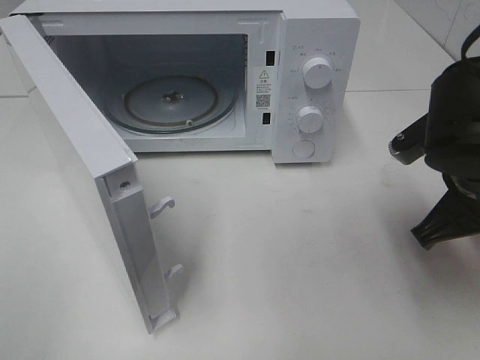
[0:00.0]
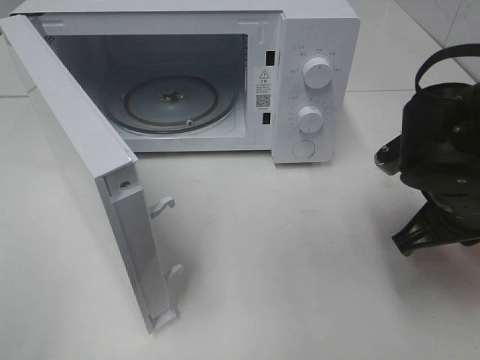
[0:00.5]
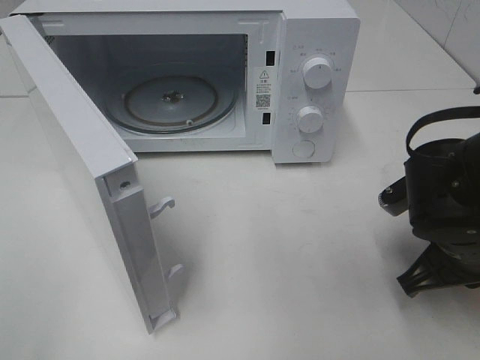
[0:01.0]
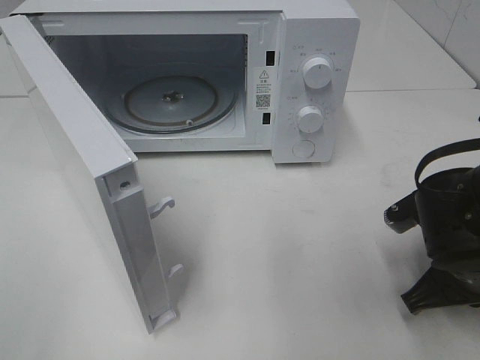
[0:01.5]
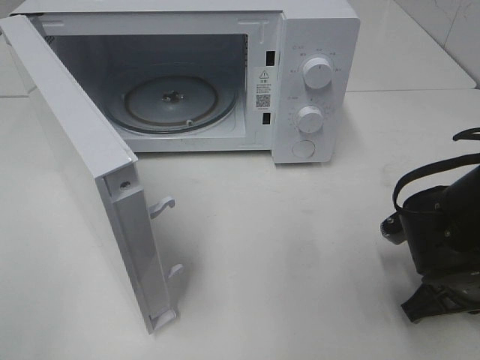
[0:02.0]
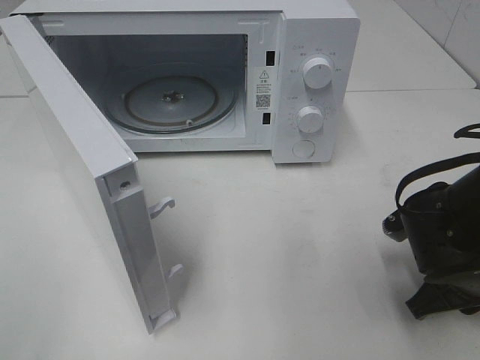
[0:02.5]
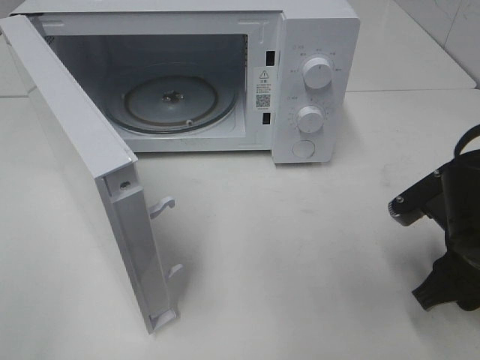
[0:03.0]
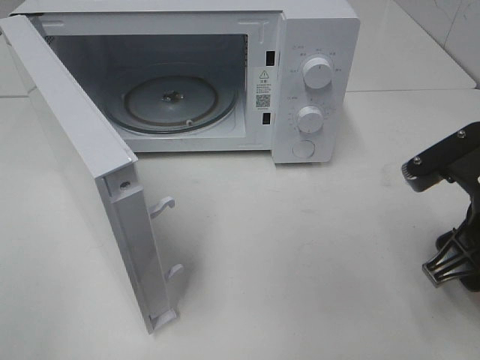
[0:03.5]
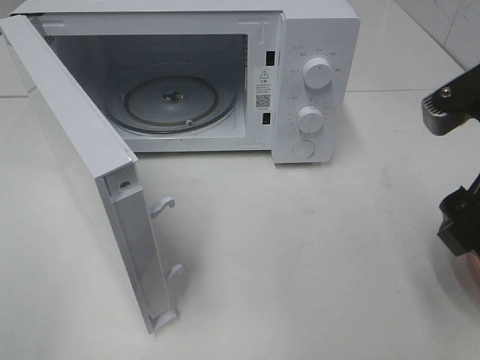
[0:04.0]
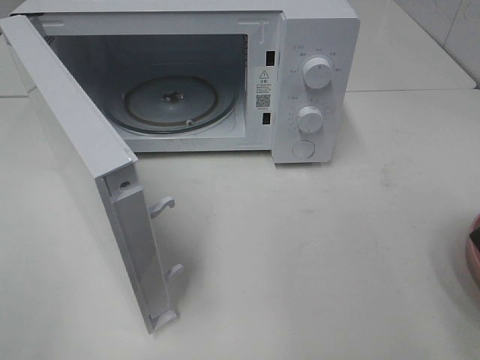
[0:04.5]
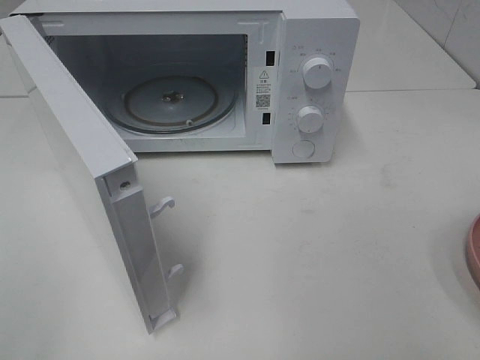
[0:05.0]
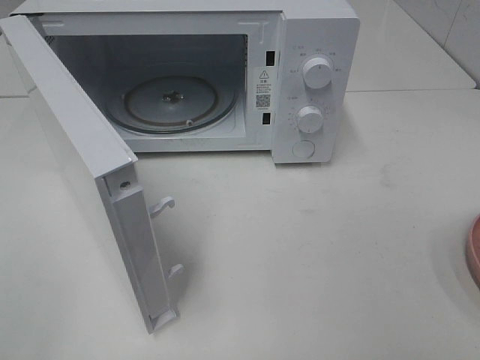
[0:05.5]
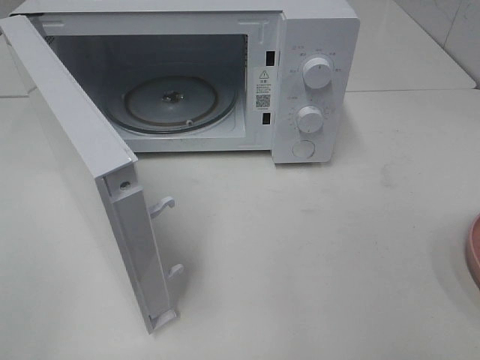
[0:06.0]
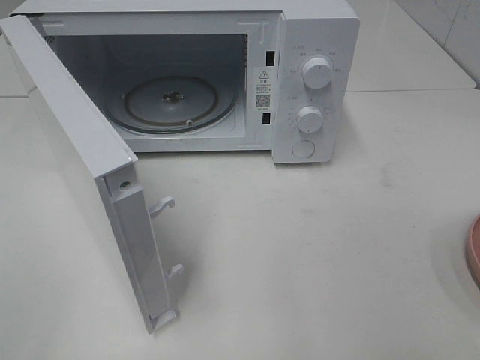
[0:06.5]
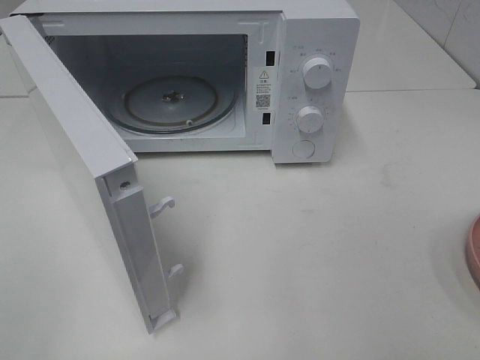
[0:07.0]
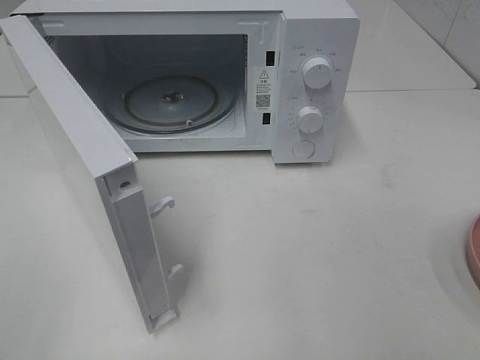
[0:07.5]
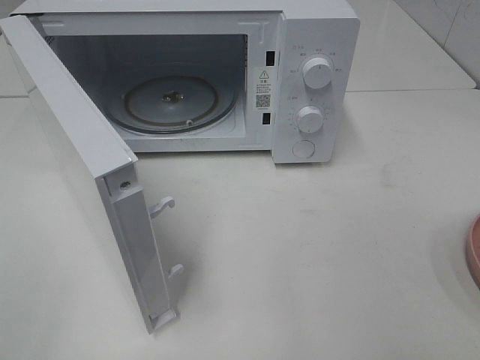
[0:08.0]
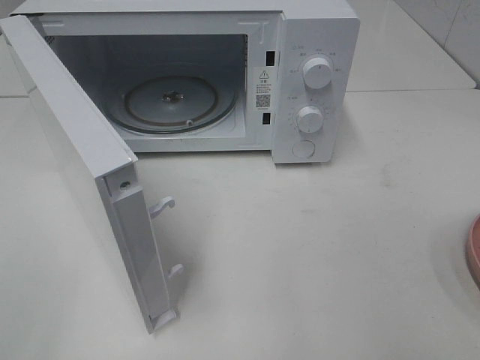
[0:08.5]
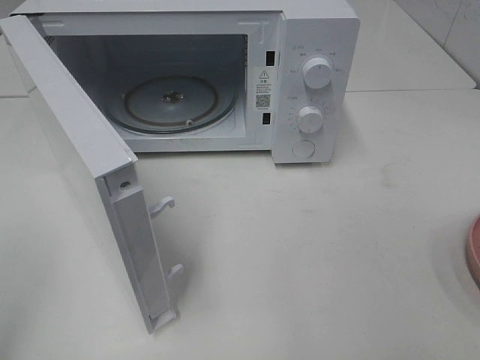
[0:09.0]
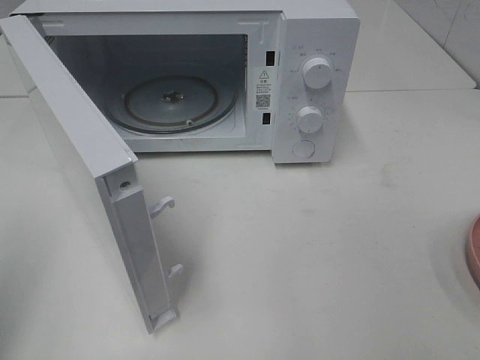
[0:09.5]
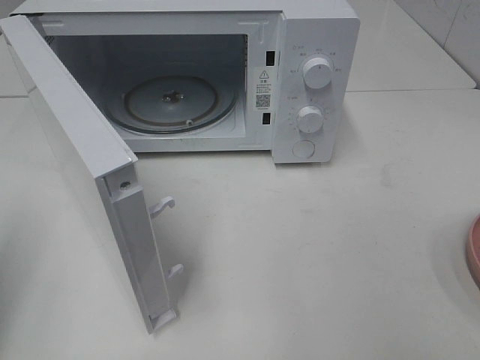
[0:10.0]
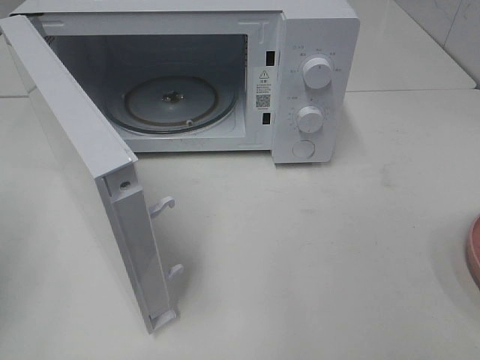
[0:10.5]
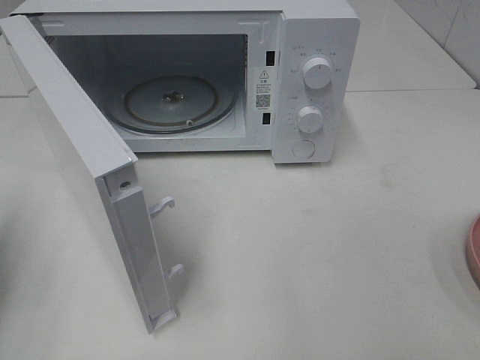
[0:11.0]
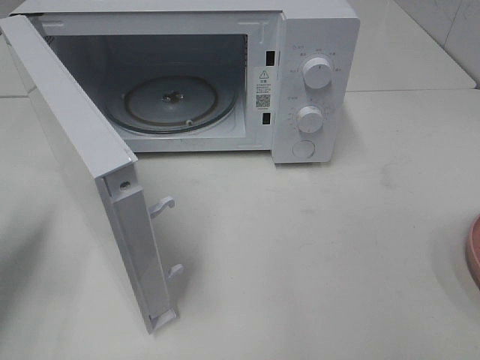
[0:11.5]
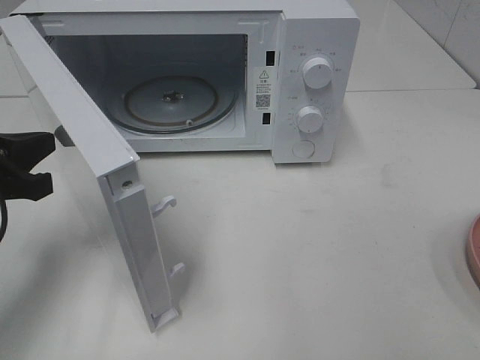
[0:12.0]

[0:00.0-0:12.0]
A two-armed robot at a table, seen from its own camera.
Task of the whole recording: Heat the burger.
Step, 0:00.0 to 0:02.5: Right hand: place the plate on the table.
0:00.0 to 0:02.0: The right gripper travels downward by approximately 10 cm.
0:02.0 to 0:04.0: The right gripper heads upward, covering roughly 15 cm, and opens up.
0:04.0 to 0:06.0: The right gripper travels backward and to the right by roughly 20 cm.
0:06.0 to 0:08.0: Both grippers stay about where they are.
0:08.0 to 0:10.0: The left gripper is displaced forward by about 15 cm, and closes up.
0:10.0 to 0:12.0: The left gripper is displaced forward, downward and to the right by some 15 cm.

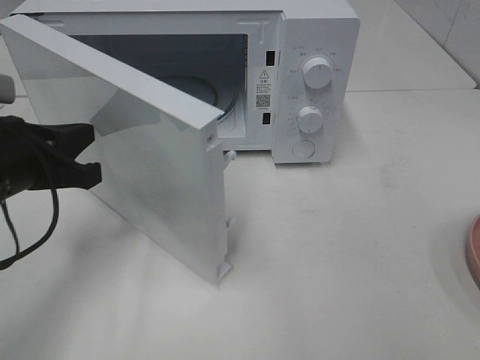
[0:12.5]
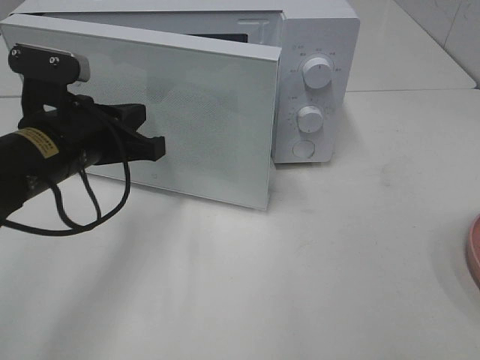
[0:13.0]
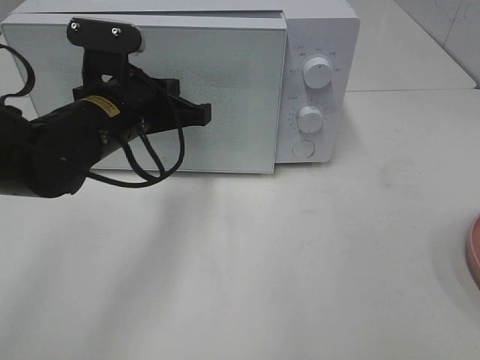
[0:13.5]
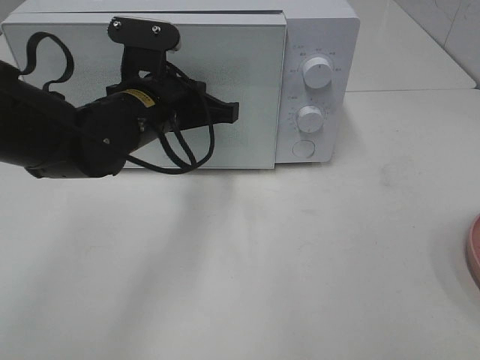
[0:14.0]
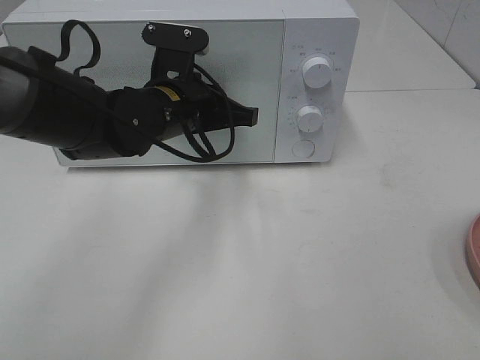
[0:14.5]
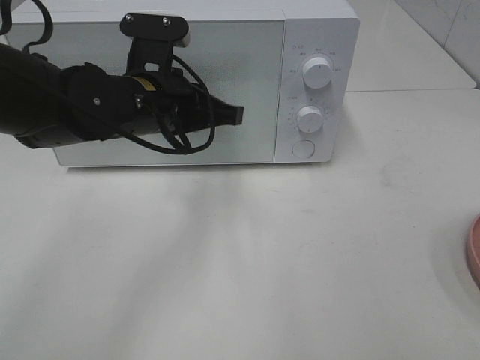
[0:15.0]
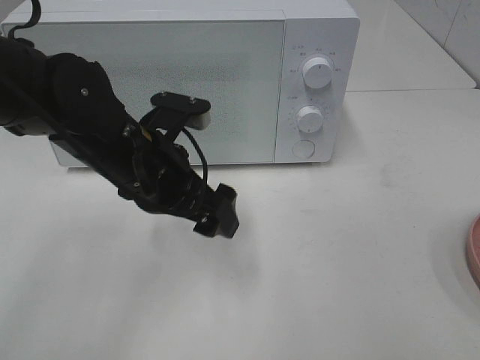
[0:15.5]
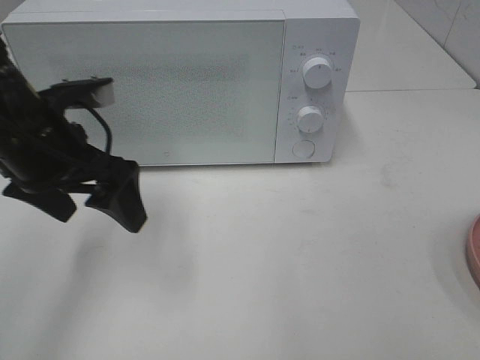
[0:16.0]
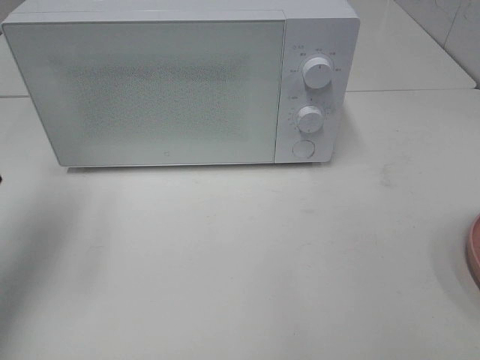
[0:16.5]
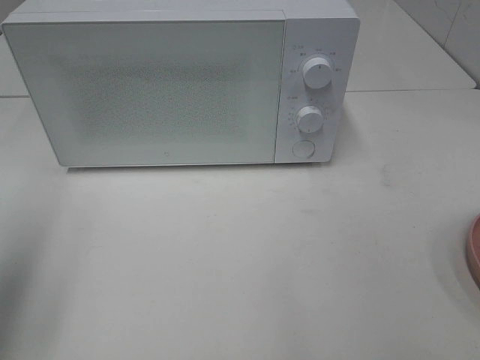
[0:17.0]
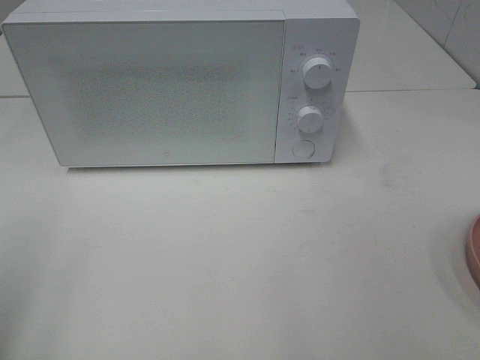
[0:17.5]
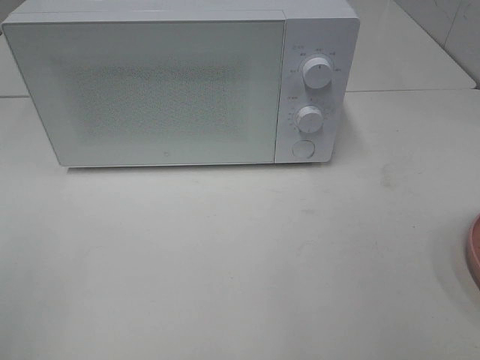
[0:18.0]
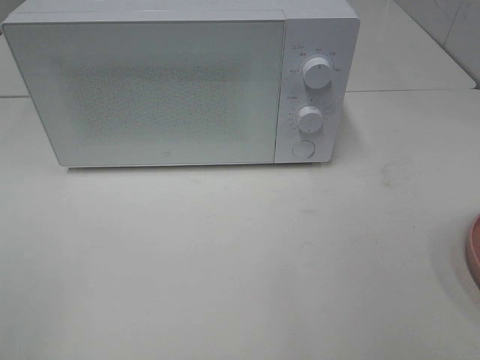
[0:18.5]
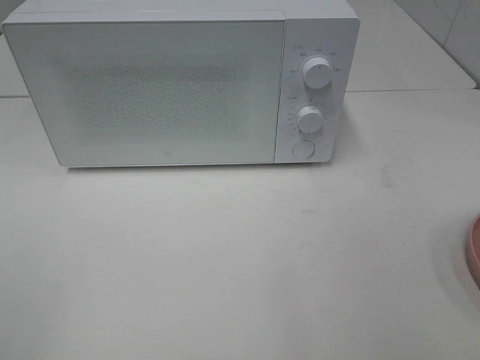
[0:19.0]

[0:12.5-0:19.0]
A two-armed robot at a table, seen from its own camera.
Task of the whole recording: Heat the burger.
Step, 0:12.5 to 0:15.0: Left hand: close the microwave door.
0:12.5 to 0:14.5: The left gripper shifts roughly 20 cm to the right and forward.
0:14.5 to 0:17.0: The left gripper heads to the left, backward and upward, covering approximately 35 cm, and opens.
0:17.0 to 0:19.0: The left gripper moves backward, about 20 cm.

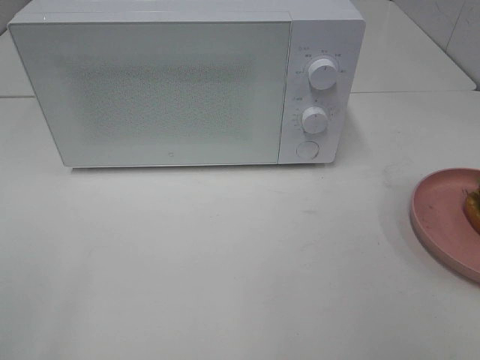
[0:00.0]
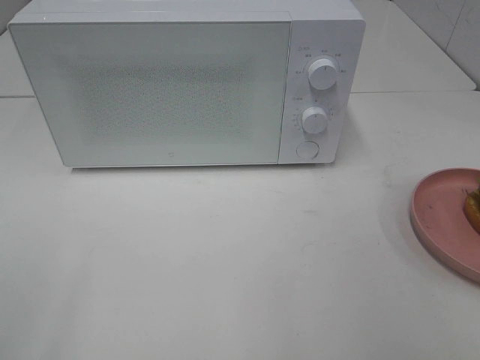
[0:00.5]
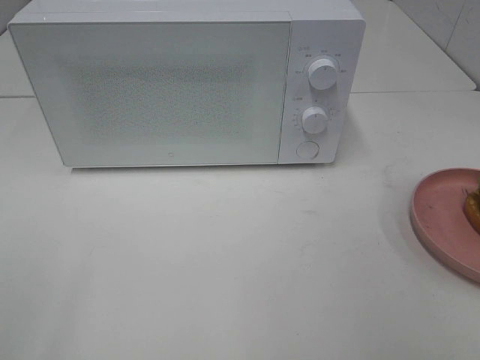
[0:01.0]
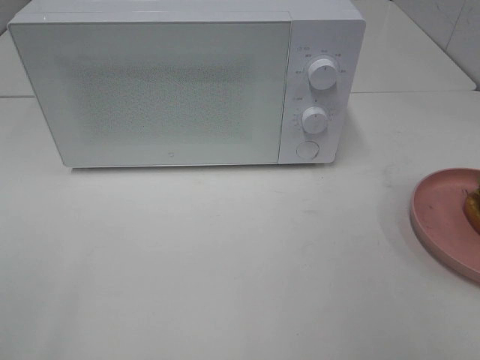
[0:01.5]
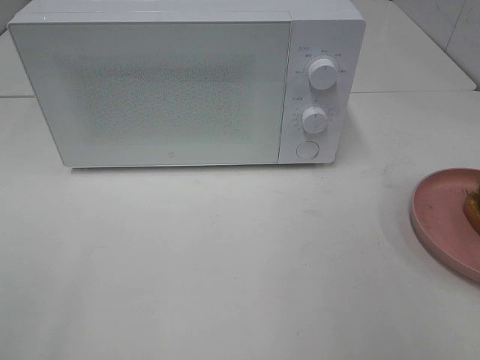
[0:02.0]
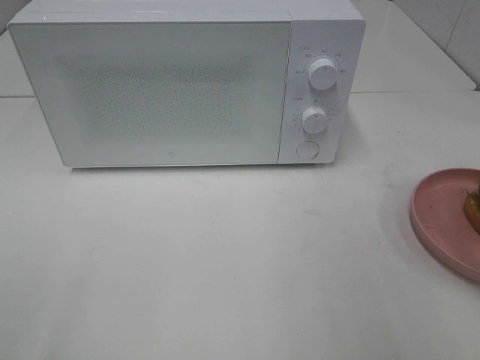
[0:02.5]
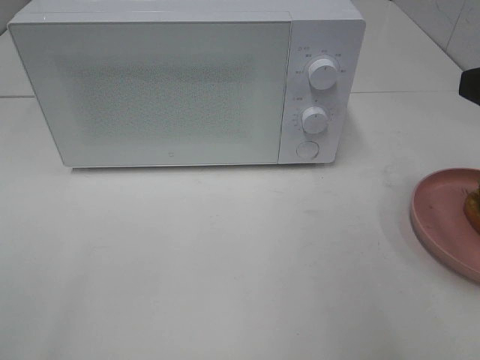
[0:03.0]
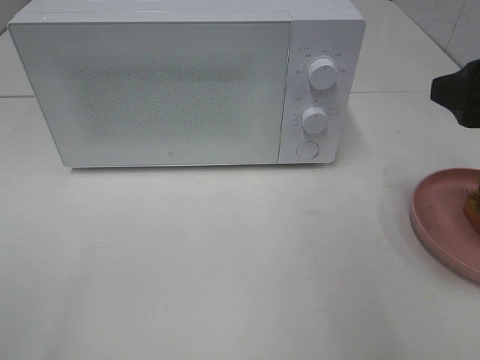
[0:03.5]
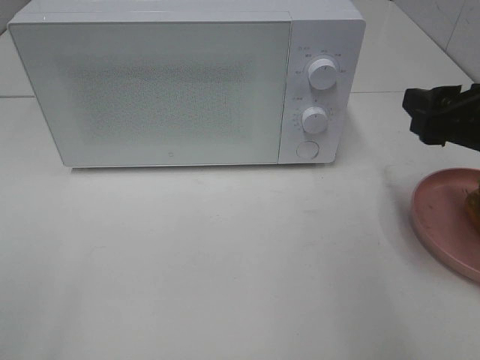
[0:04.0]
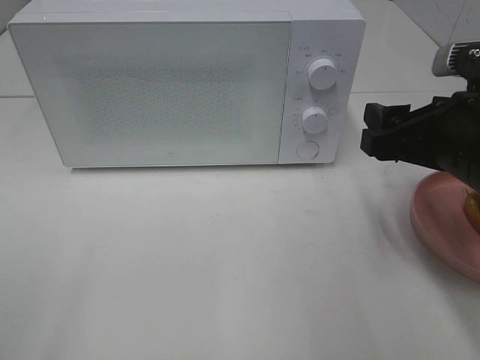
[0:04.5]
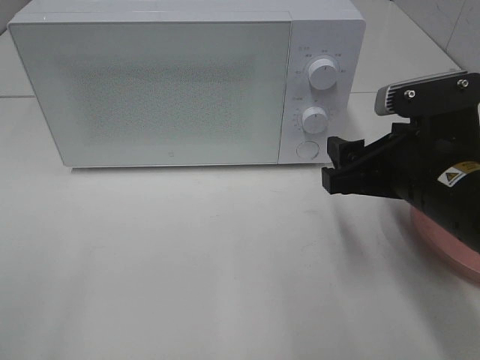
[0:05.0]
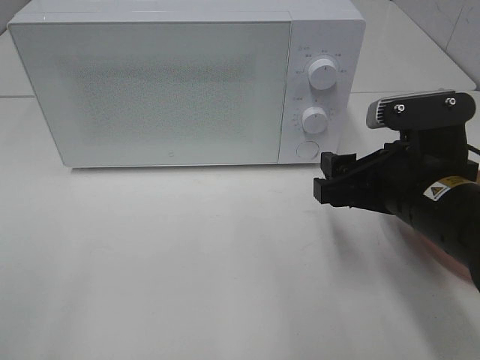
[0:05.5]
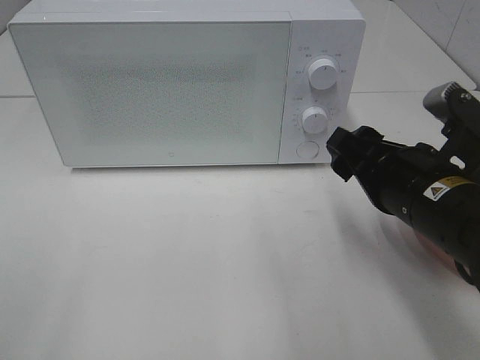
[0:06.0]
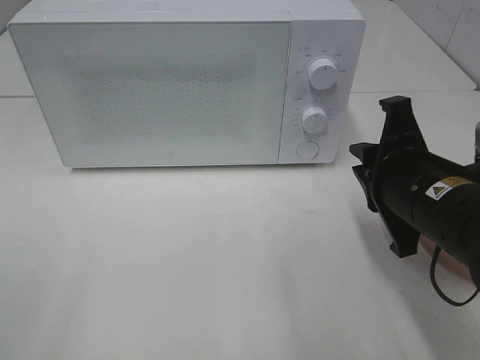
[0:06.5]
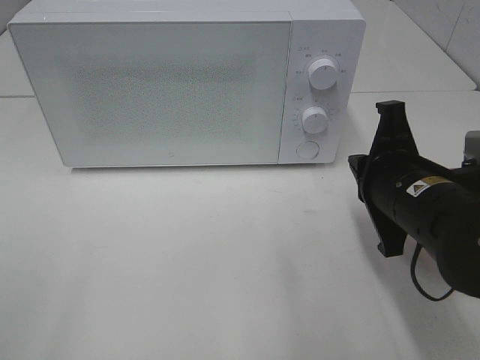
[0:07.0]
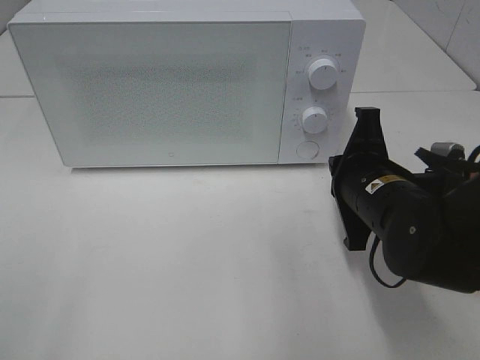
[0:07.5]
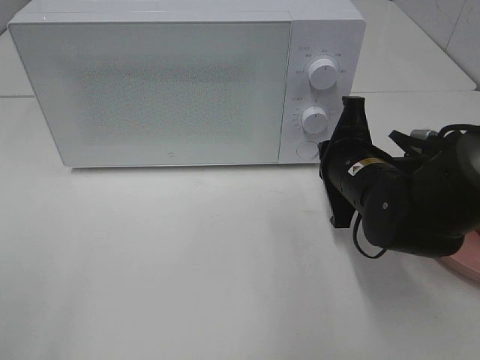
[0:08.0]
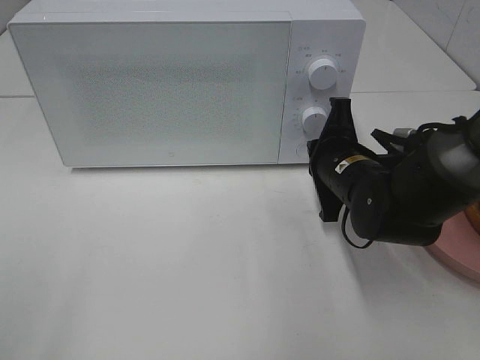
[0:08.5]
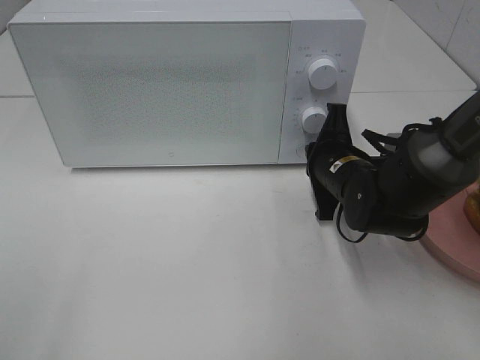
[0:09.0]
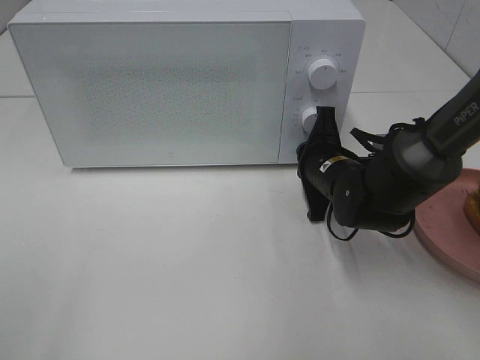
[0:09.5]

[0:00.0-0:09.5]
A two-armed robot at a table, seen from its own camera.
Task of the whole recording: Heat the burger.
0:02.0 to 0:04.0: The right gripper is displaced forward and downward by approximately 15 cm.
0:04.0 to 0:05.5: The right gripper heads to the left and downward, covering approximately 10 cm.
0:05.5 to 0:07.5: The right gripper shifts by roughly 5 cm, and closes its fingers.
0:07.5 to 0:09.5: The right gripper is displaced forward and downward by roughly 10 cm.
